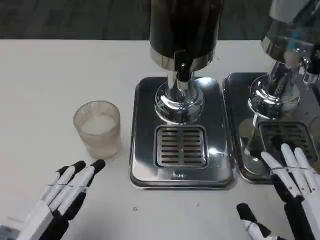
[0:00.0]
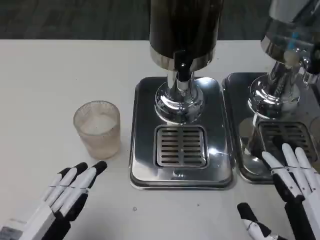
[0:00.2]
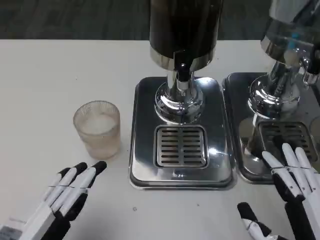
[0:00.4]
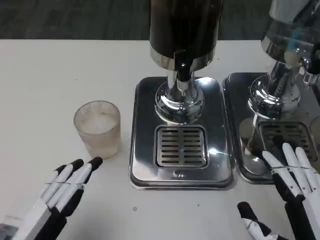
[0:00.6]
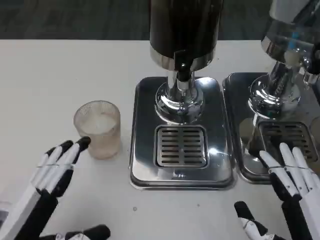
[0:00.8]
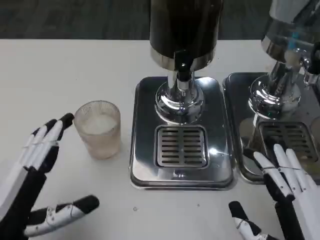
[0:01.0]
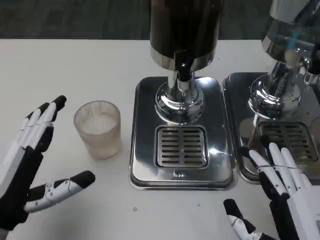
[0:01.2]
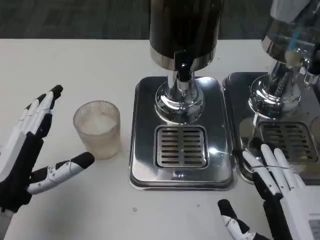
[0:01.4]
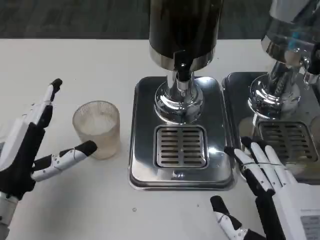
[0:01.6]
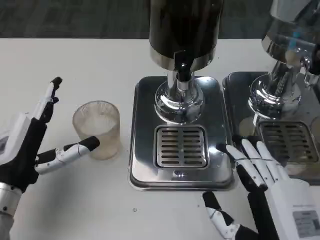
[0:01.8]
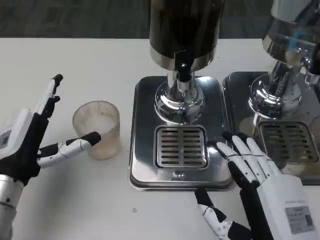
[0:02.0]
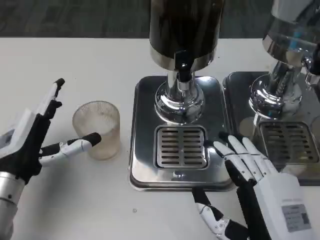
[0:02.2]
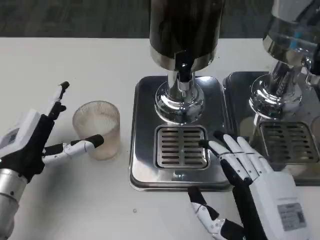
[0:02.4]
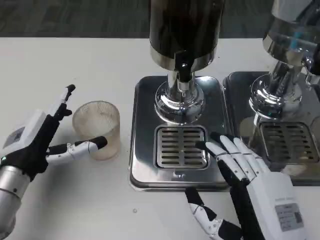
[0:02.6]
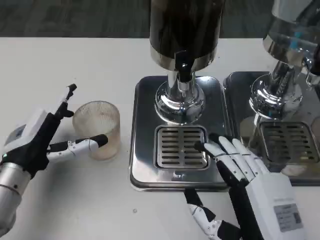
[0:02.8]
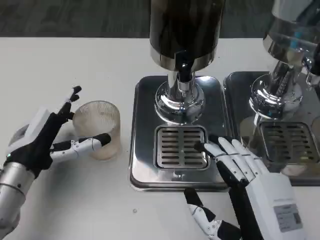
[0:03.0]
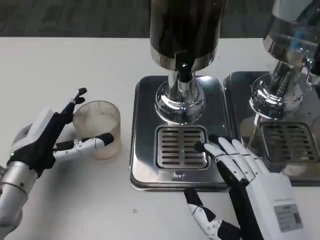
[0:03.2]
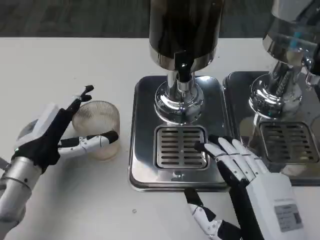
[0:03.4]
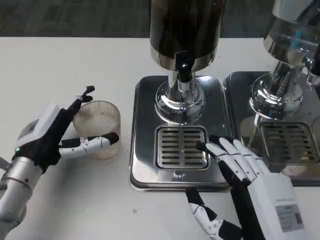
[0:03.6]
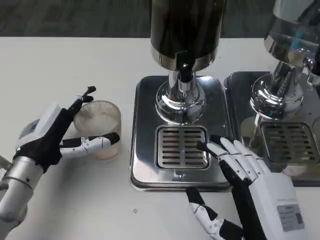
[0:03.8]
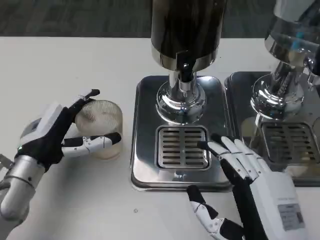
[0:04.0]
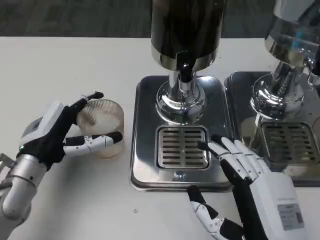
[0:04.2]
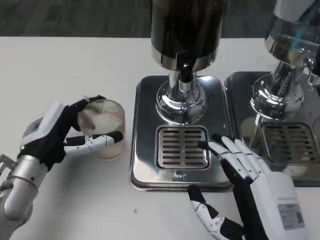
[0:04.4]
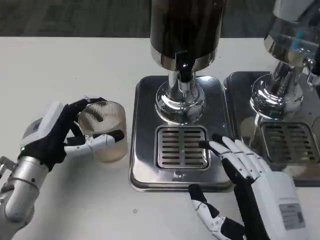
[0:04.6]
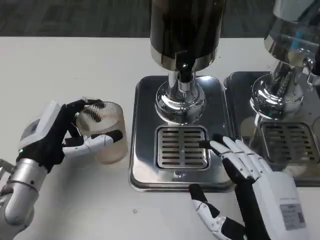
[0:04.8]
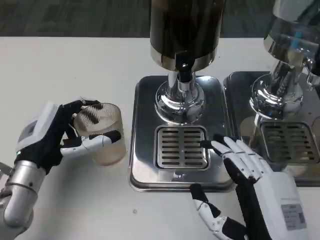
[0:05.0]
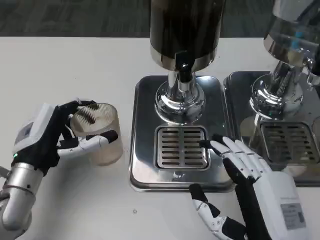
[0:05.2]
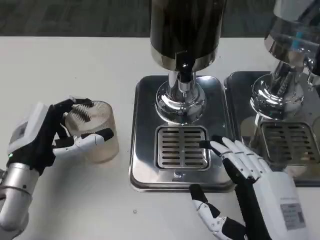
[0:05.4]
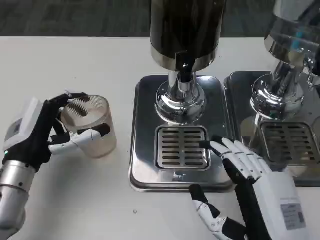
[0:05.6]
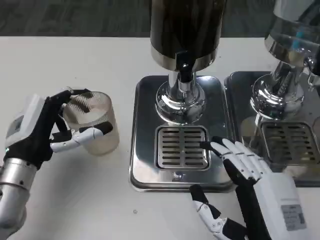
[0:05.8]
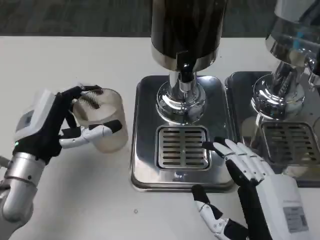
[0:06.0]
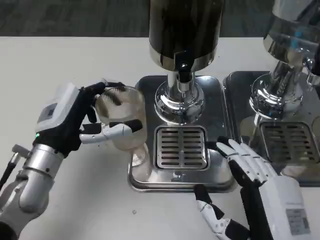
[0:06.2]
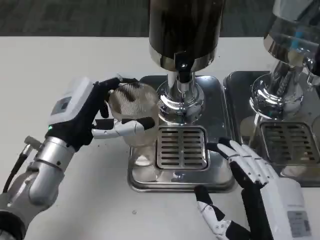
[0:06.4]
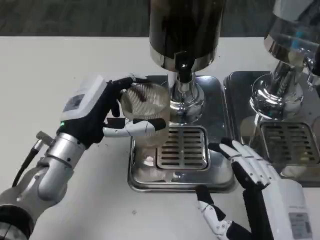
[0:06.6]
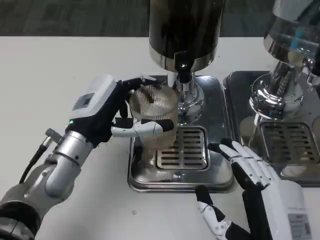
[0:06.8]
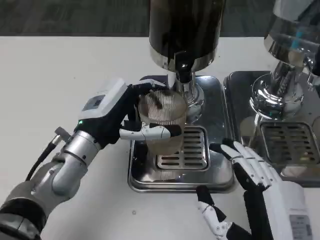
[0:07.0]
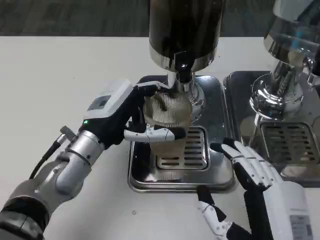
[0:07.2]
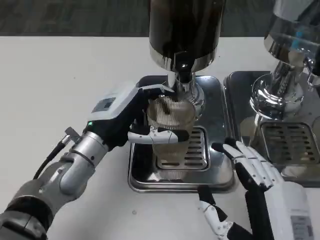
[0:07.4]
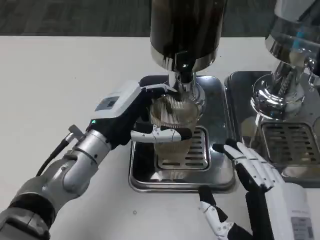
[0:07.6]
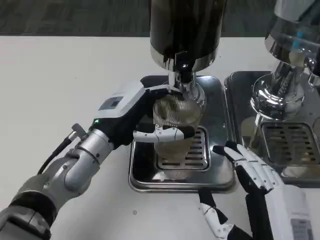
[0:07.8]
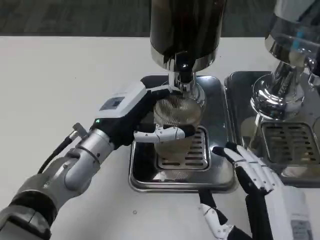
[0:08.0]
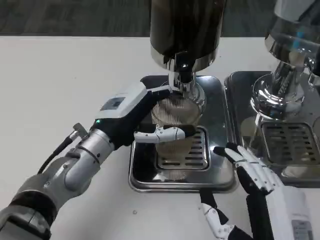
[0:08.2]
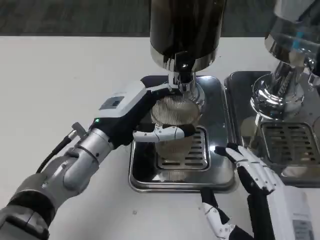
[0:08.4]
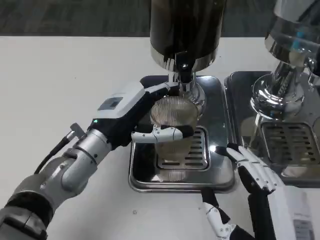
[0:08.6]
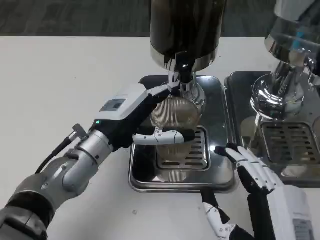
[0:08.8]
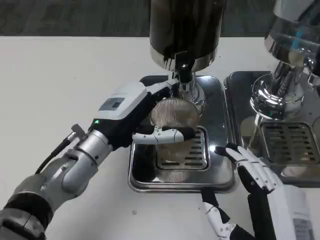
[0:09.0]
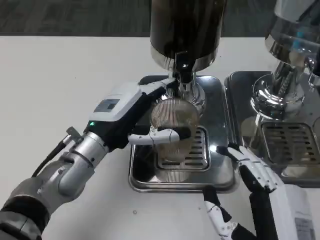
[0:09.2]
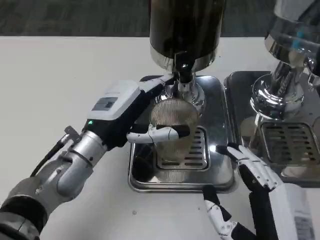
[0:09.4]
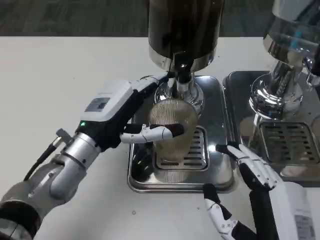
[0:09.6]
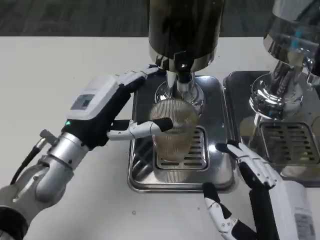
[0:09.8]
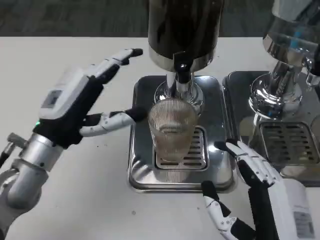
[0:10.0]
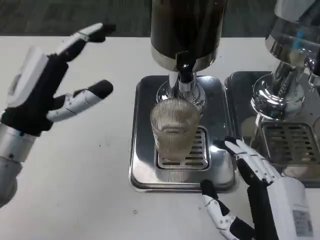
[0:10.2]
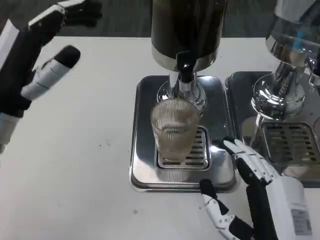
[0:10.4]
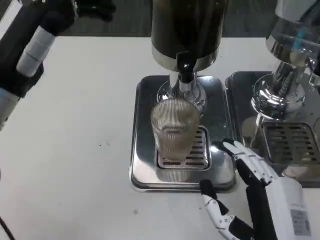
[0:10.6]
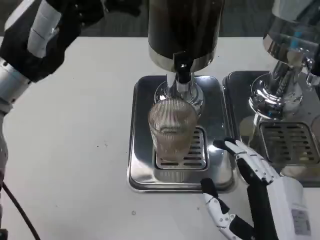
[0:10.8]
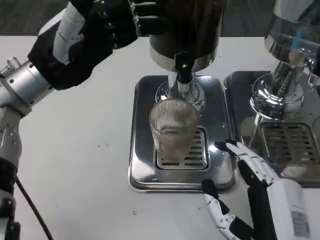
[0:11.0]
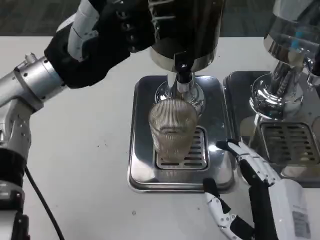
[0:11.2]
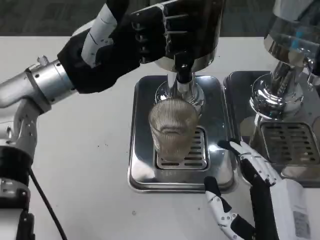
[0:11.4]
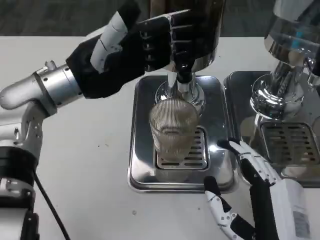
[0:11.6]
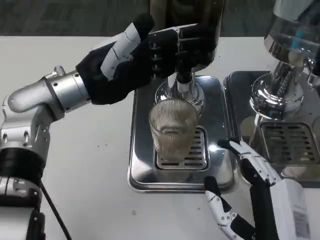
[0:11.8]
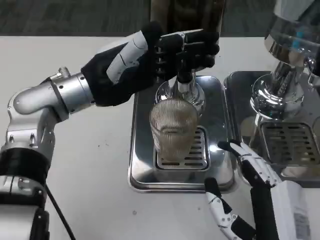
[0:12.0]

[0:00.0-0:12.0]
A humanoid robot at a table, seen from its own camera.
Task of the whole recording: Grasp the cup under the faucet to collect the drink, then remove the cup.
0:00.0 to 0:01.6: The left hand shifts some 10 cm forward.
0:03.0 to 0:06.0: The hands make only small movements.
0:06.0 to 0:07.6: The left hand heads to the right, covering some 10 cm.
0:07.6 to 0:09.0: The hands stay close to where they were, moving slightly.
0:09.0 to 0:10.4: The left hand moves to the left and upward, about 10 cm.
0:10.4 to 0:12.0: The left hand shifts roughly 10 cm forward and to the right.

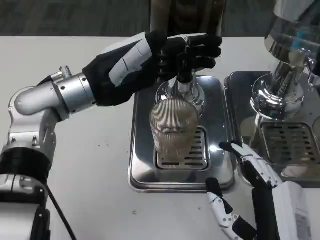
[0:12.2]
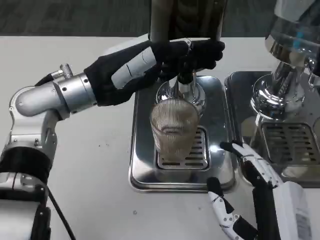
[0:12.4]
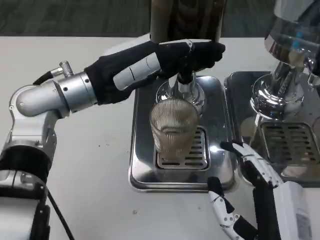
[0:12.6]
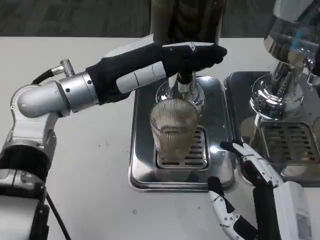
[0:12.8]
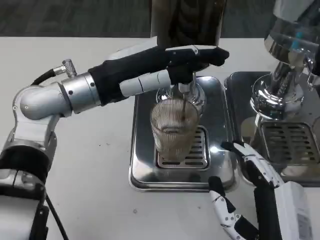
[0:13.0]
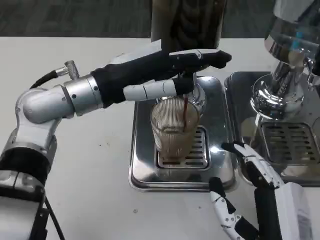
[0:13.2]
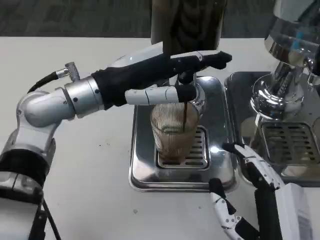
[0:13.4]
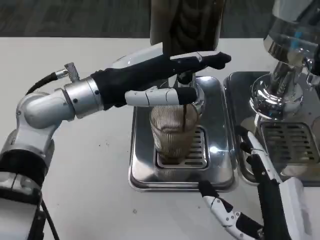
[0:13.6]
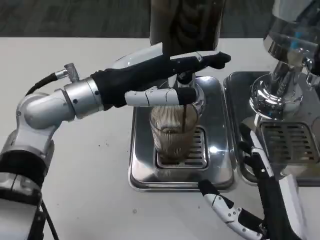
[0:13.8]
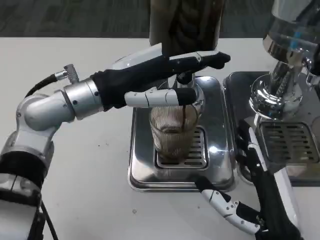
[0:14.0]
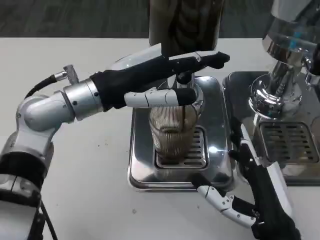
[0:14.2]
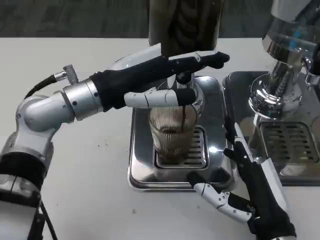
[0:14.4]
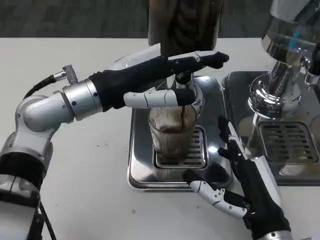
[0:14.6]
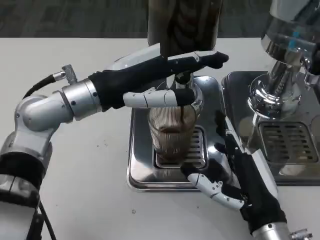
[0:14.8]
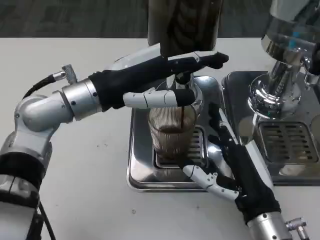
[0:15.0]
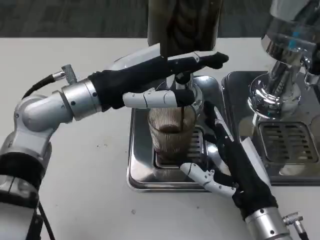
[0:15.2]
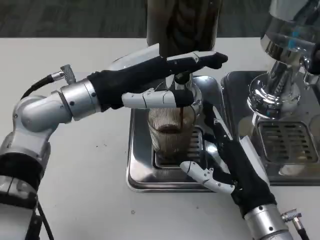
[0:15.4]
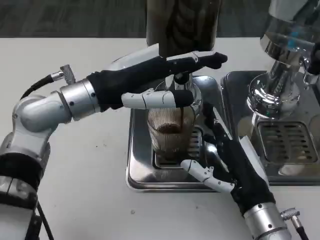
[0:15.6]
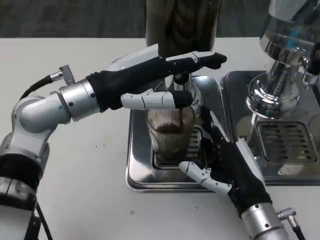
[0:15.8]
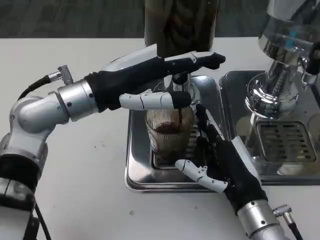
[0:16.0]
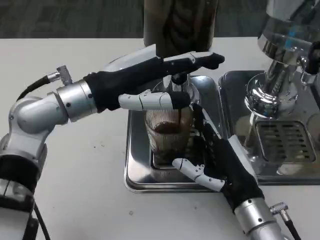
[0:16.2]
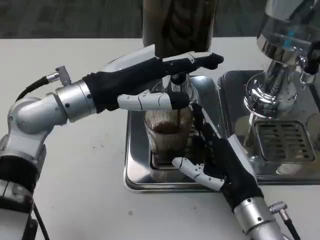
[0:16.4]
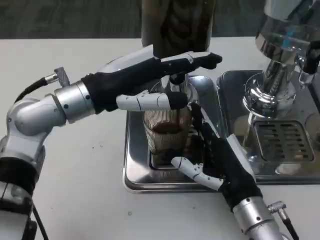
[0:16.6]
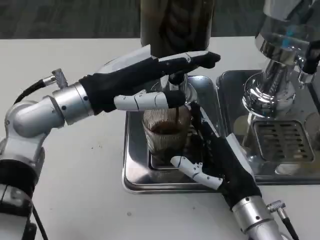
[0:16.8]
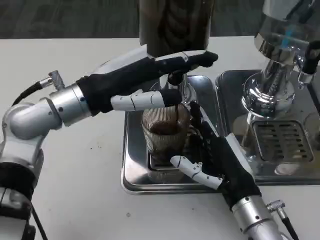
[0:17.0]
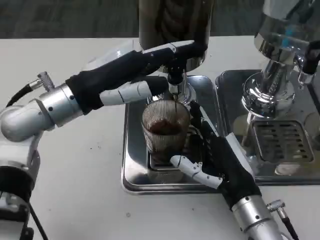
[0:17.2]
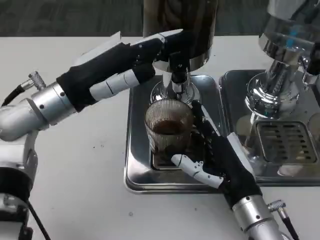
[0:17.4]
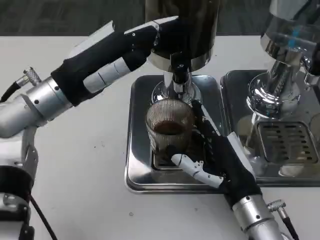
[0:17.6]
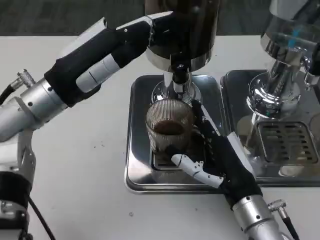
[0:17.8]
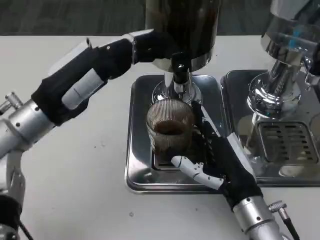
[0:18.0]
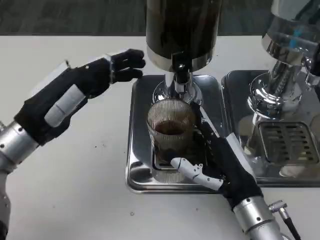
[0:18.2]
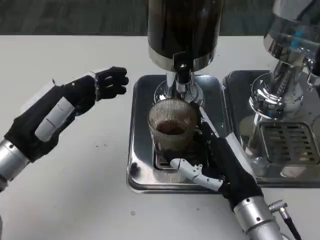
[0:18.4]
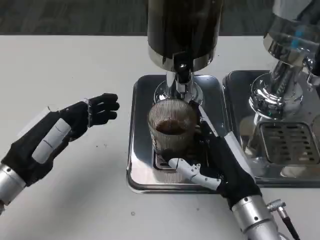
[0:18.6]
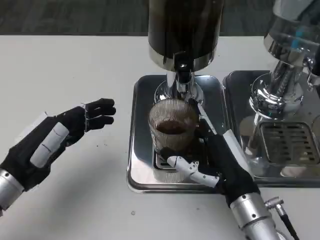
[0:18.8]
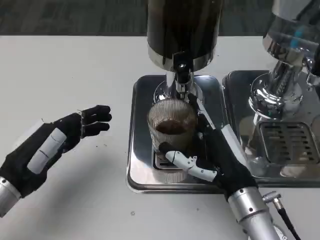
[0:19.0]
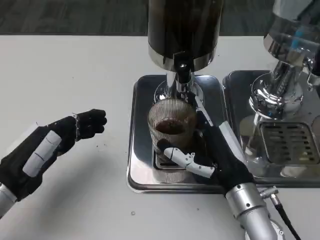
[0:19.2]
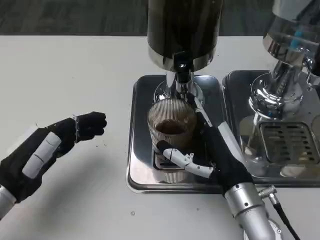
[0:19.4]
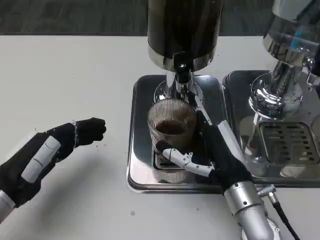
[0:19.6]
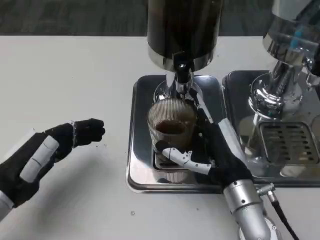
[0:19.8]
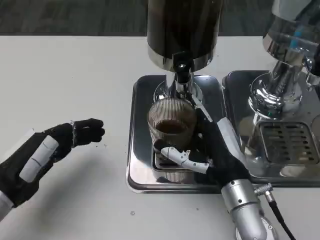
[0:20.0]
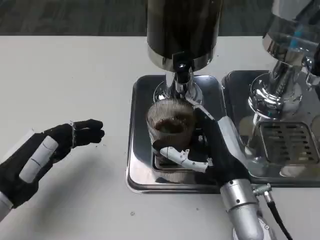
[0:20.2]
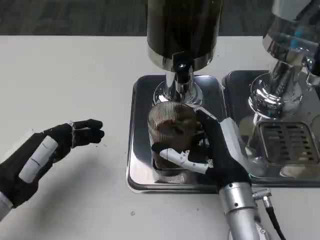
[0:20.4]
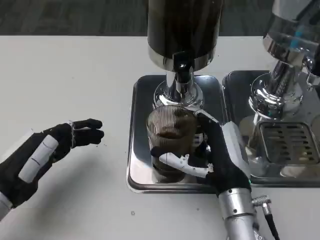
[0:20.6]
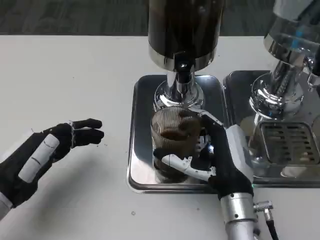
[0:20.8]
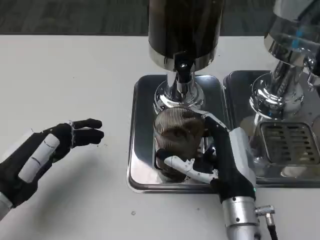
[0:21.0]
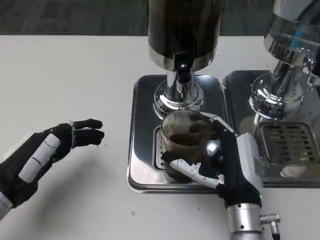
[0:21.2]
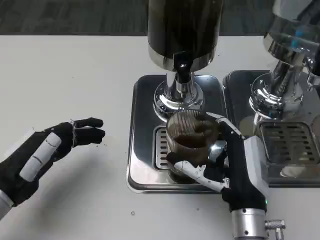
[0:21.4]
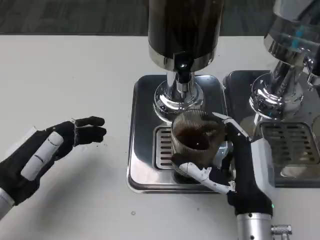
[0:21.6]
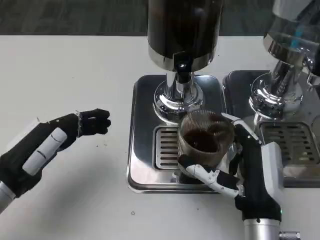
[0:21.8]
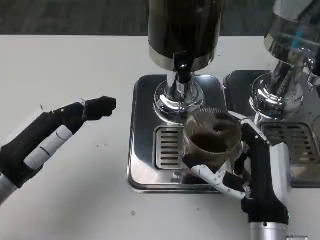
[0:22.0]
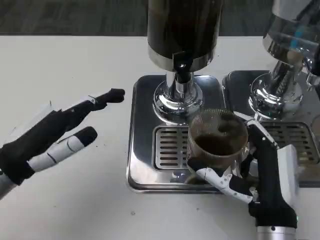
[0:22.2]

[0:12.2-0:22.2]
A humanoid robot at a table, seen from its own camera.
Task of the whole recording: Grasp the cup under the faucet to collect the drink, then remove the cup.
0:13.6 to 0:15.0: The right hand goes approximately 10 cm forward.
0:16.4 to 0:18.0: The left hand goes some 5 cm to the left.
0:18.0 to 0:19.4: The left hand moves backward, downward and to the left, roughly 10 cm.
0:19.4 to 0:20.8: The hands stay close to where they were, moving slightly.
0:20.8 to 0:22.2: The left hand ends up approximately 5 cm from where it was. Meanwhile the right hand heads backward, covering roughly 5 cm.
